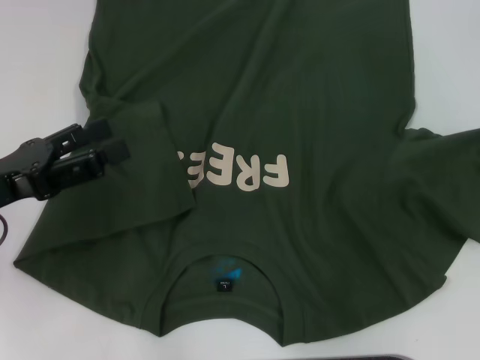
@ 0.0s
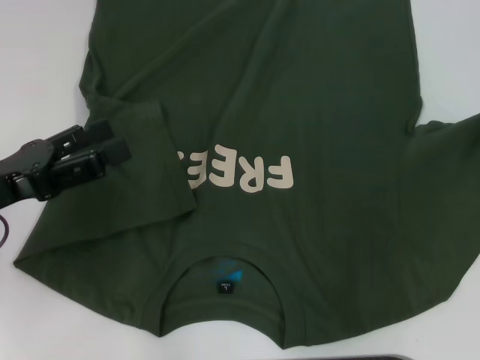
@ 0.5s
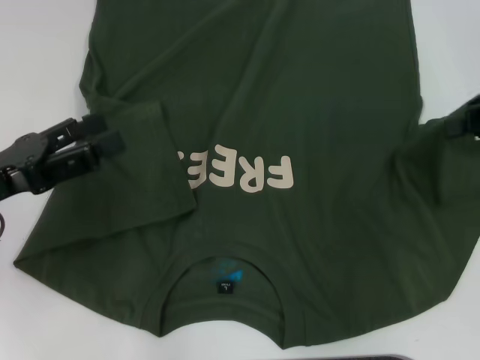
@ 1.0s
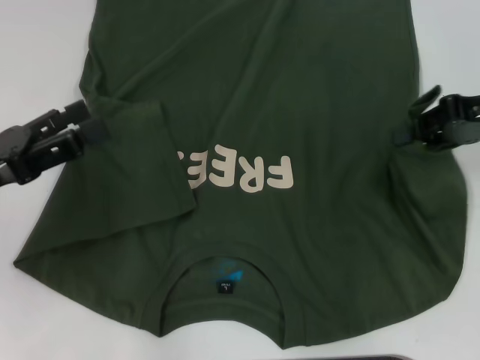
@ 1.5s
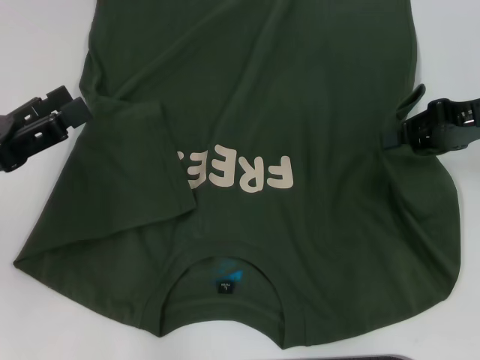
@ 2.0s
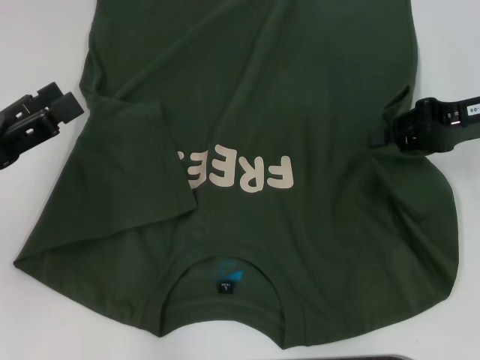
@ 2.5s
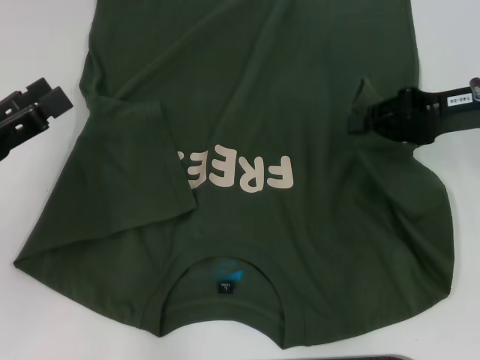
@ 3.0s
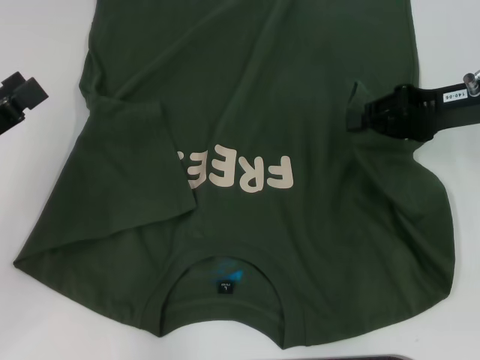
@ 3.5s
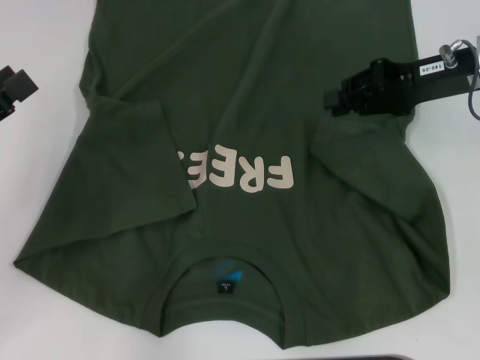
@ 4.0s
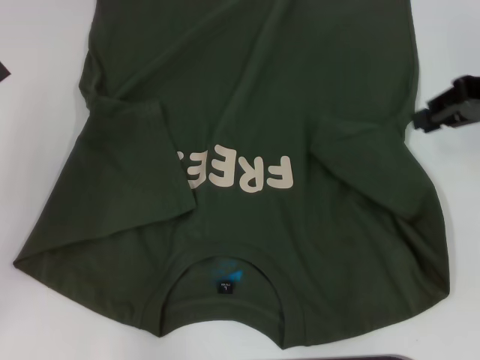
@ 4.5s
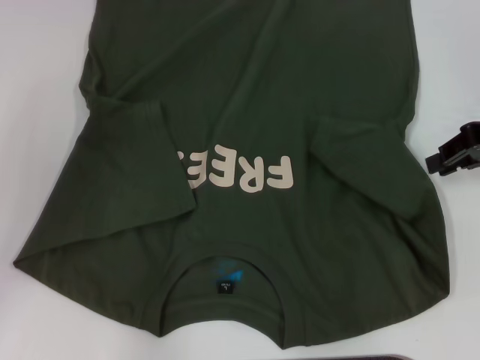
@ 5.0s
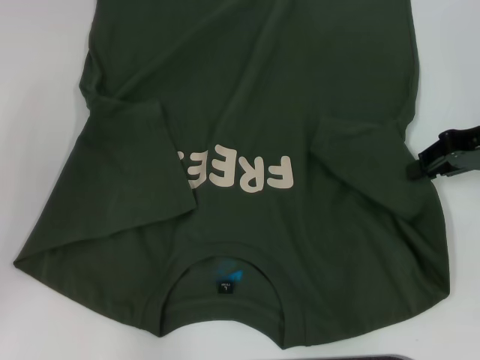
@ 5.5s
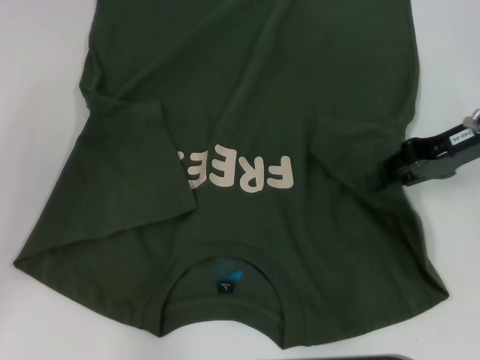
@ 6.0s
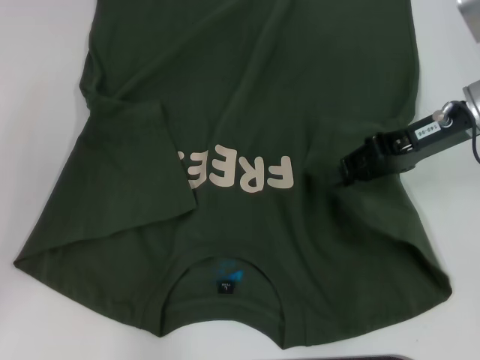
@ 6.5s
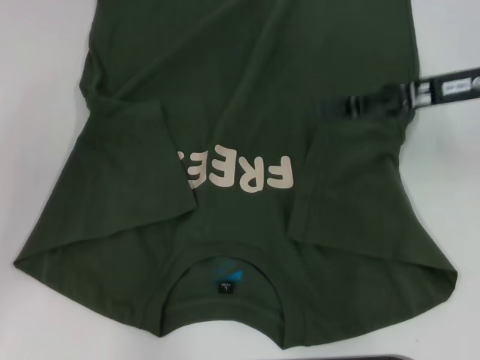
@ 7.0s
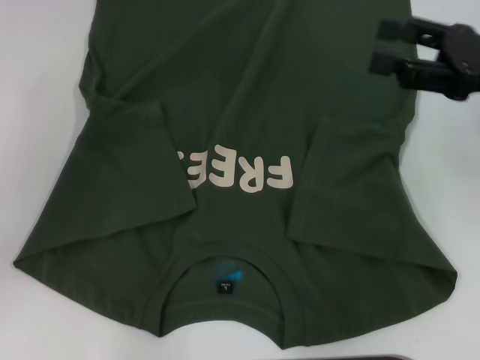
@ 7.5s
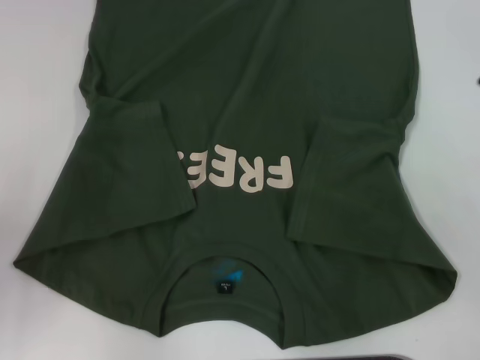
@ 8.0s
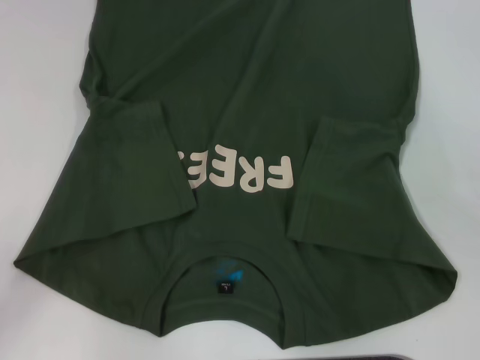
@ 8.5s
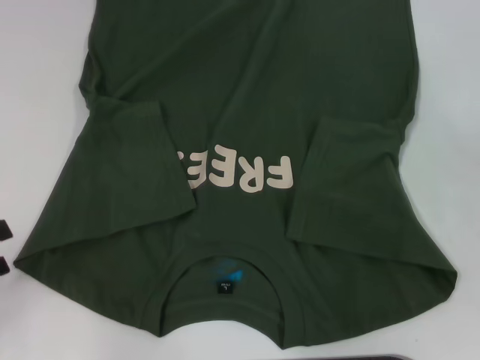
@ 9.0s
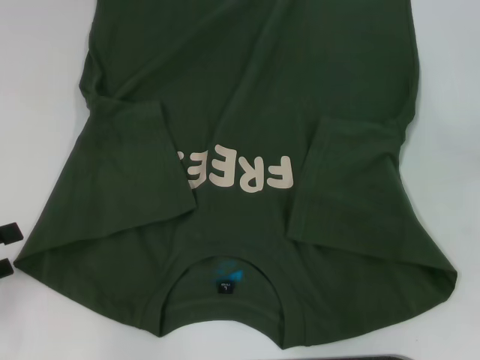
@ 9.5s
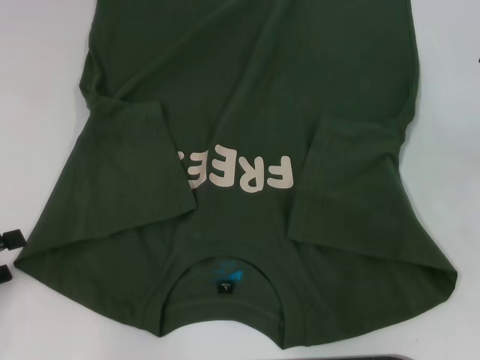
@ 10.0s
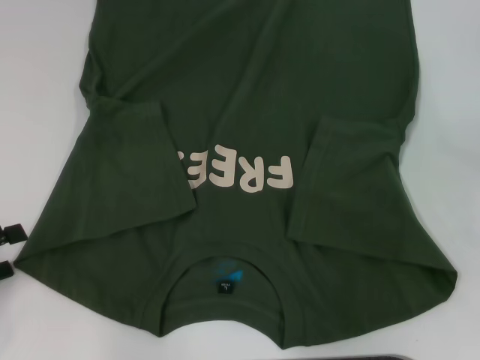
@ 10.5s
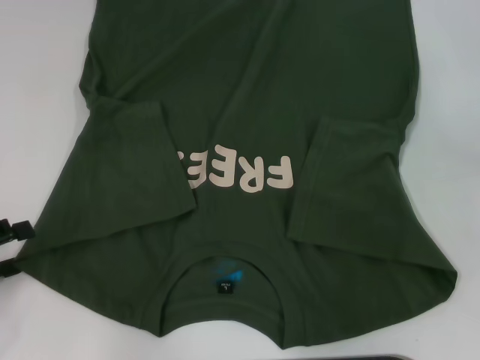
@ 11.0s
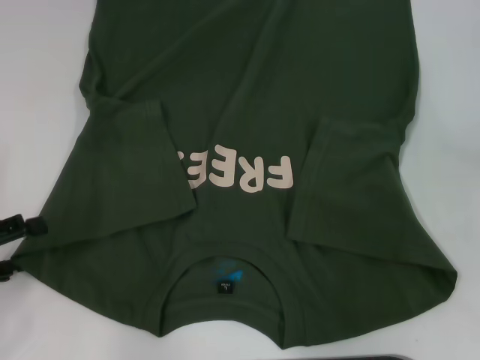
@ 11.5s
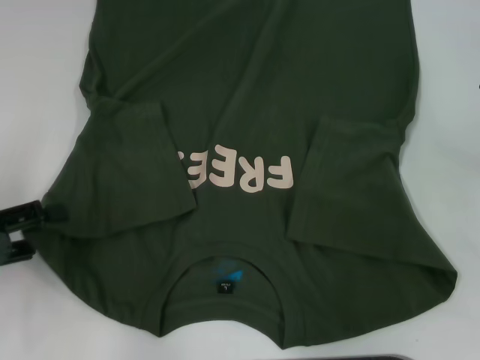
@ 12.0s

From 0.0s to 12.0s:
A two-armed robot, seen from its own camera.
Step, from 0.0s to 4.0s: Fold the bottom right sleeve with your right hand.
From 0.0s to 2.0s: The right gripper heads to the left, covering some 10 cm.
From 2.0s to 4.0s: The right gripper ends up approximately 5 cm from where it was.
From 6.0s to 8.0s: The right gripper moves backward and to the right, about 15 cm, and opens up.
From 10.0s to 12.0s: The grippers move only a little.

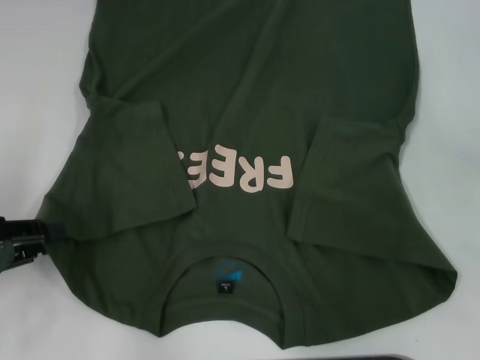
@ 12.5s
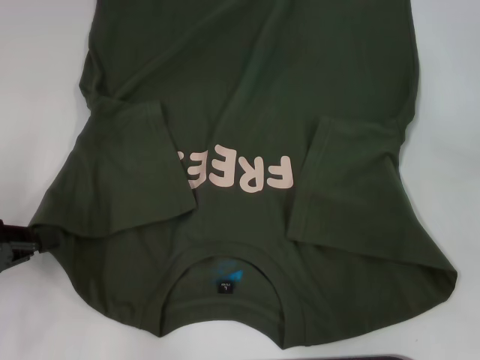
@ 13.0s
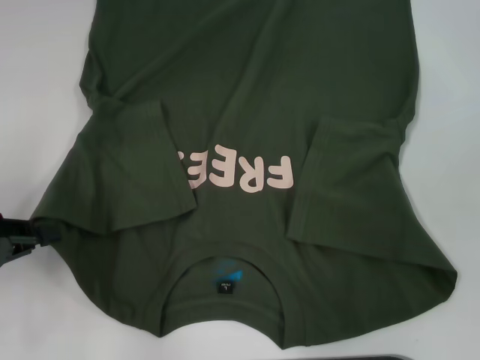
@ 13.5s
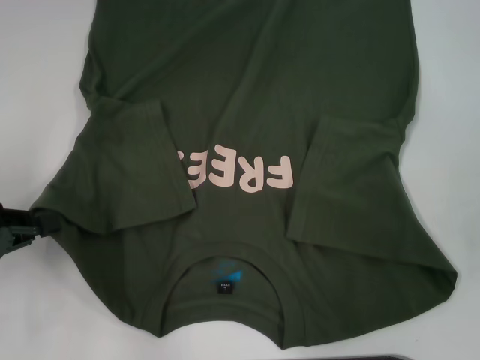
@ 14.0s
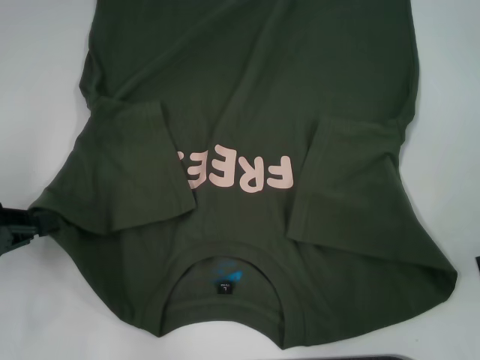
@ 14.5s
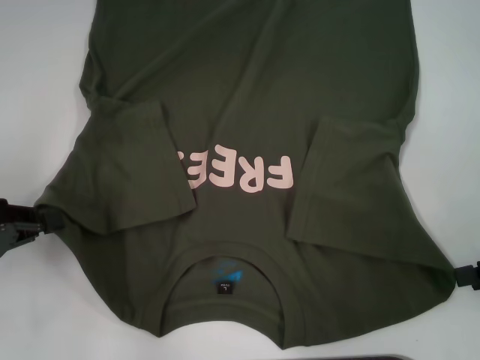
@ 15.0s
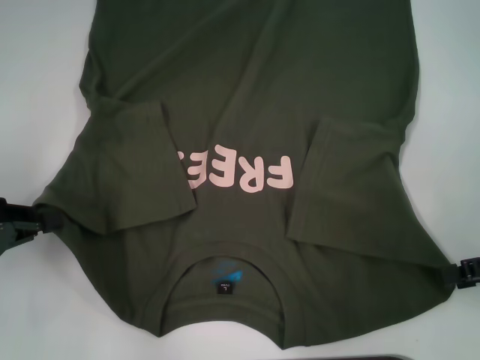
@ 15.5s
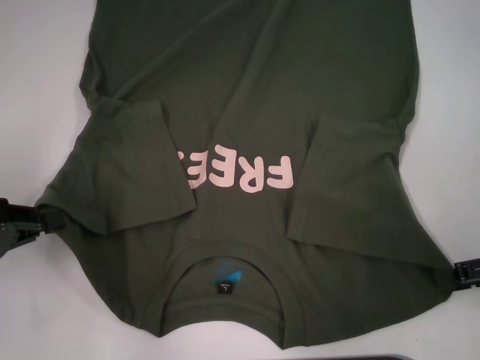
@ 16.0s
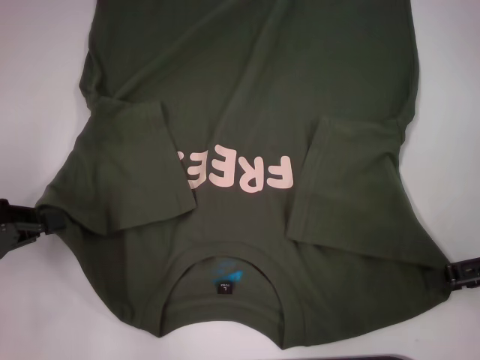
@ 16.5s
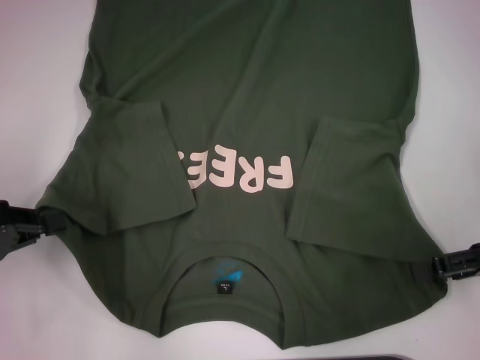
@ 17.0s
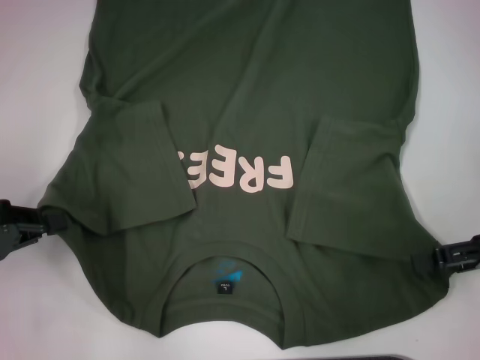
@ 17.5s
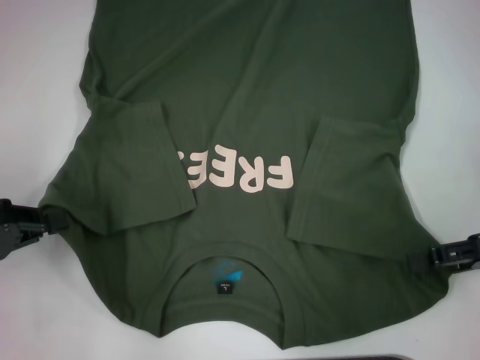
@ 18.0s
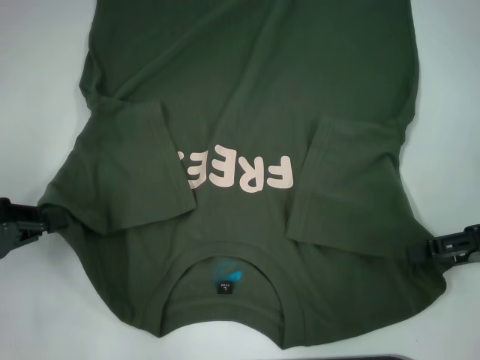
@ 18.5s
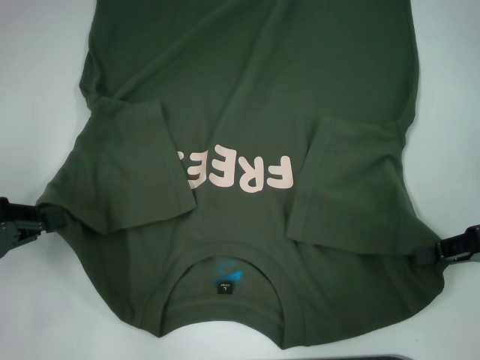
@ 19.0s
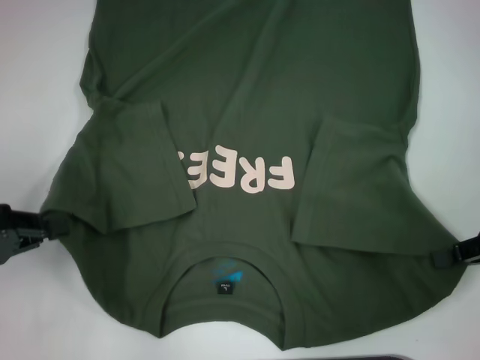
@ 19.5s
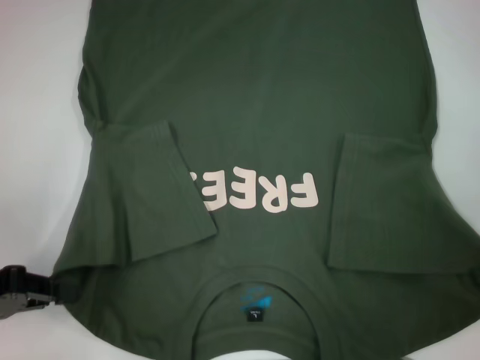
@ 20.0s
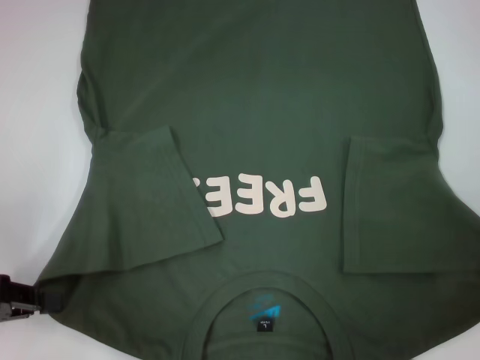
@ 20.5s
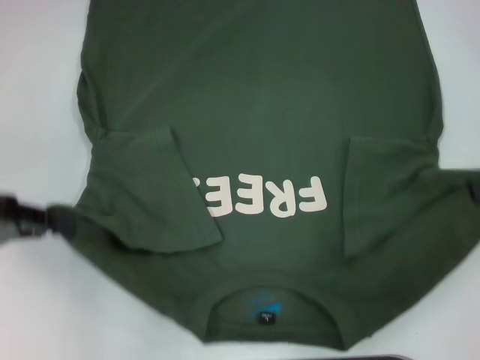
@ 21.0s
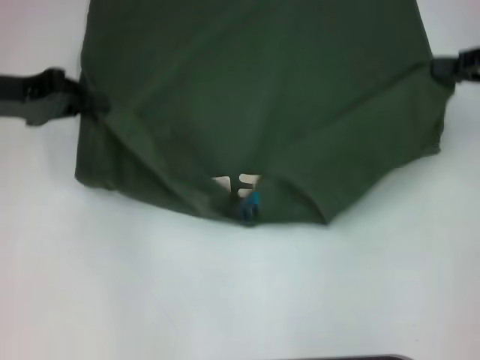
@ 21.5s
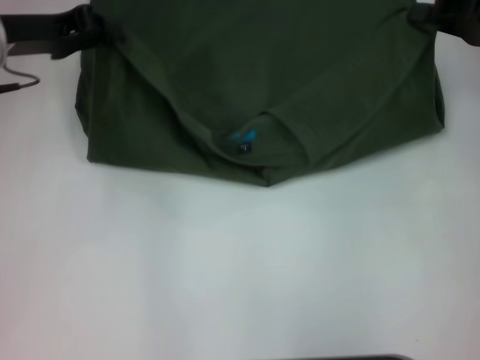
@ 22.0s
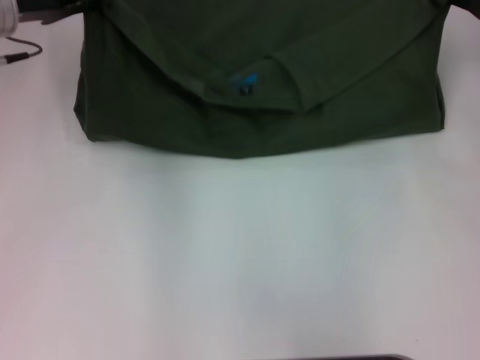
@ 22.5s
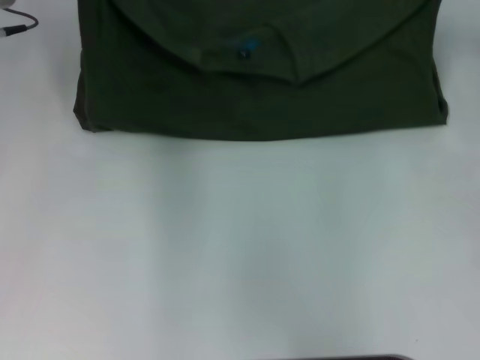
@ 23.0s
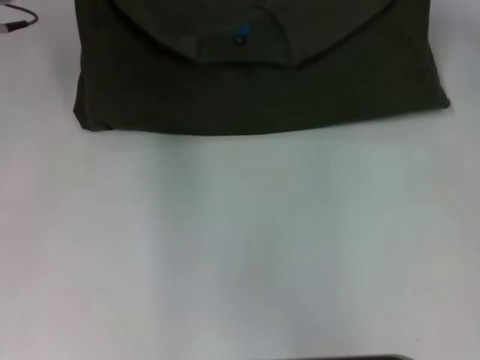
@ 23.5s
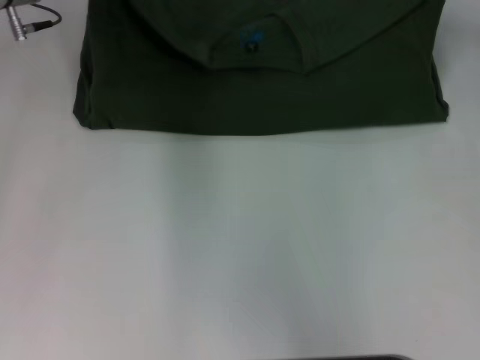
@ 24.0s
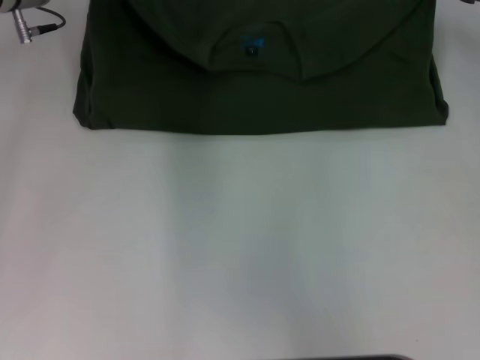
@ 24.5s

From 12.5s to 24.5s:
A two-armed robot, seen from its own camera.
Step, from 12.5s to 15.5s: Grab the bottom left corner with your left hand.
Step, from 16.0s to 19.0s: Grab the bottom right corner with your right hand.
From 12.5s to 14.5s: The left gripper closes its fingers.
From 16.5s to 18.5s: There are only small adjustments of the grippers.
From 18.5s to 20.5s: The right gripper changes place by approximately 5 cm, and closes its fingers.
From 20.5s to 22.5s: The left gripper shifts approximately 25 cm forward and to the right; the right gripper is displaced forward and to the left by some 15 cm.

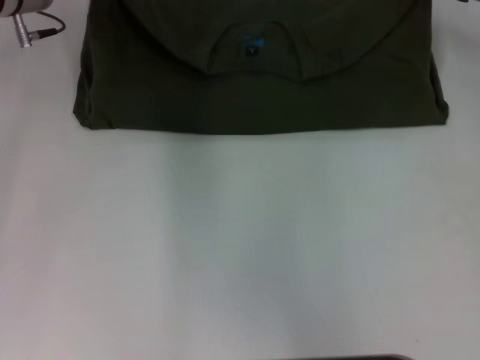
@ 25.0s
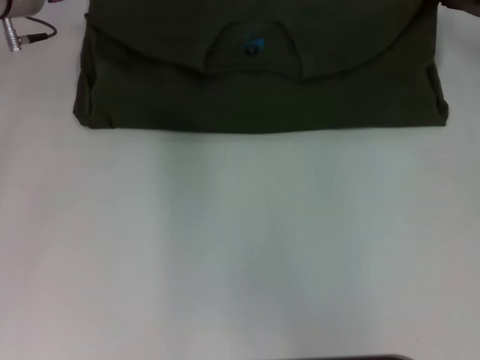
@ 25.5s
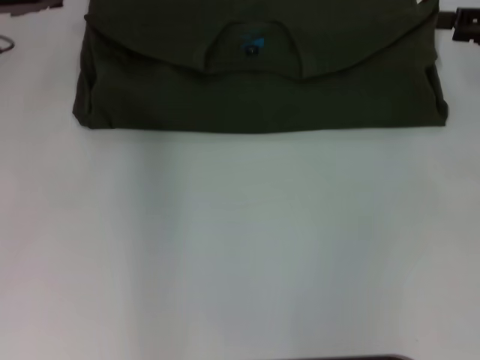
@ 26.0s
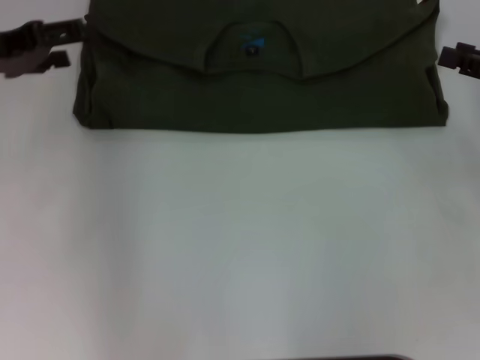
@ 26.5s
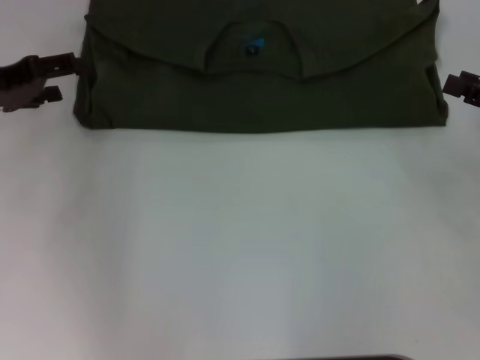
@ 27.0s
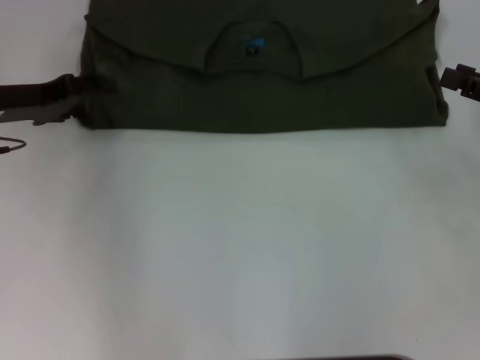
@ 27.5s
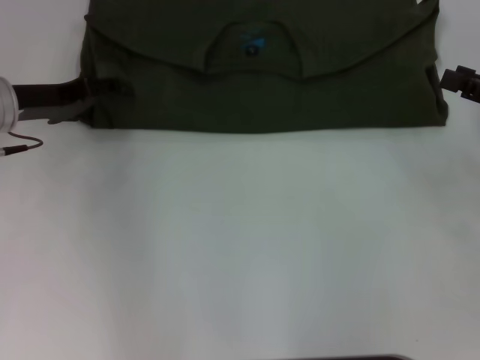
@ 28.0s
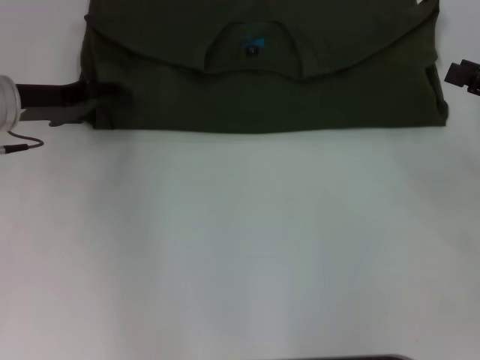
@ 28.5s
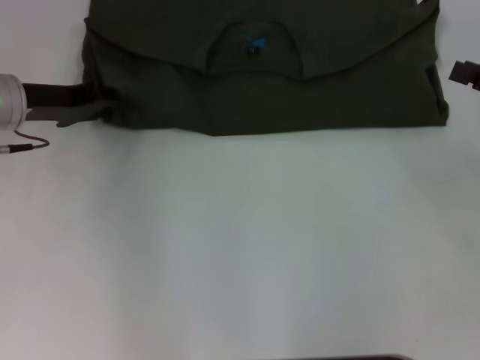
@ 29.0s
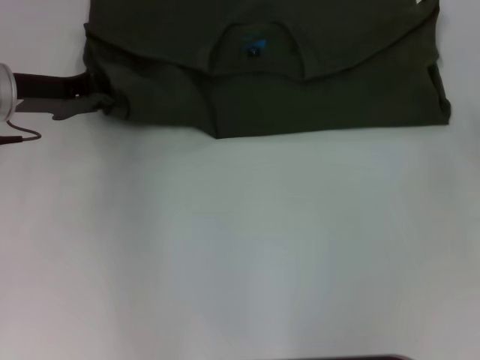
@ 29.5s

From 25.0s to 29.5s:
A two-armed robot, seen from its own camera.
From 25.0s to 27.0s: The right gripper goes approximately 15 cm backward and to the right, and opens, while the left gripper moves to the left and backward, about 15 cm, and opens.
From 27.0s to 29.5s: Both grippers move to the right, approximately 5 cm. The left gripper closes its fingers.
